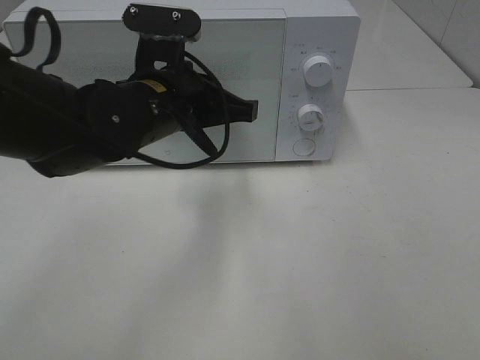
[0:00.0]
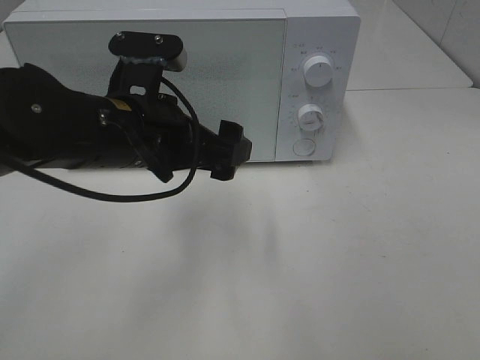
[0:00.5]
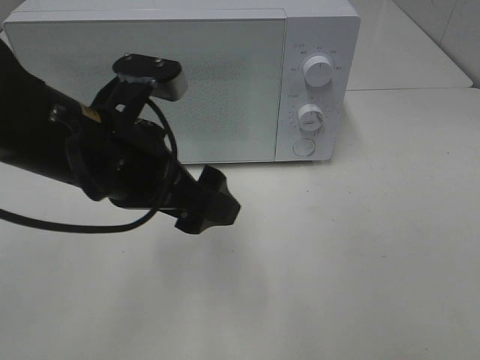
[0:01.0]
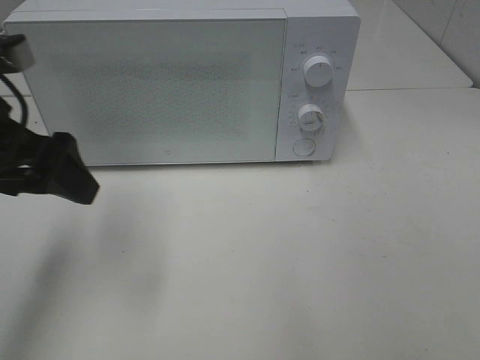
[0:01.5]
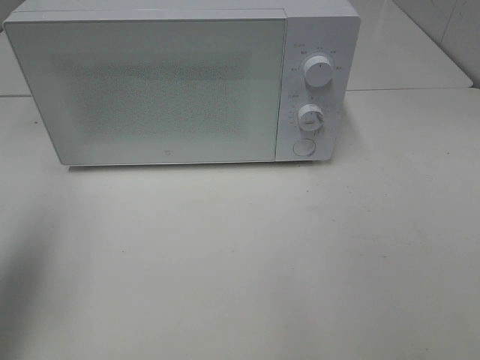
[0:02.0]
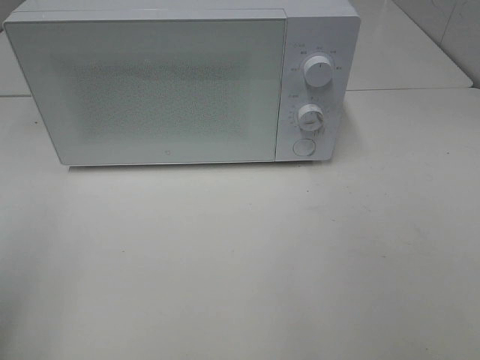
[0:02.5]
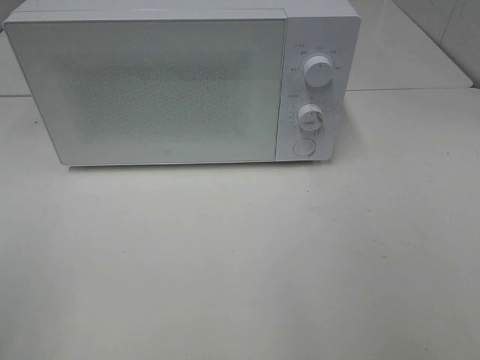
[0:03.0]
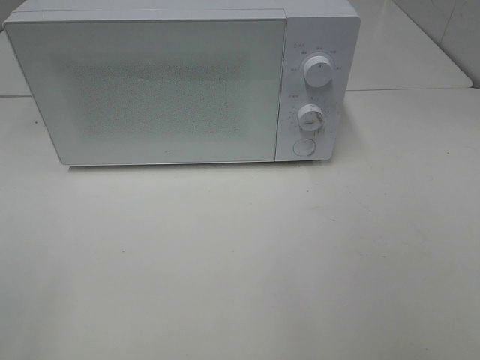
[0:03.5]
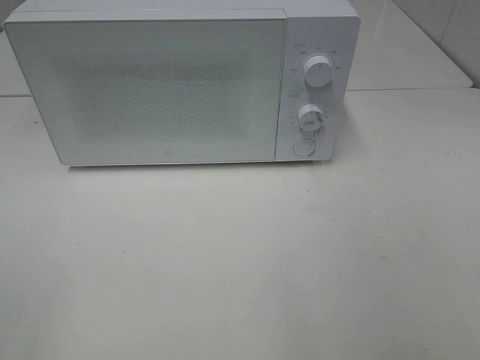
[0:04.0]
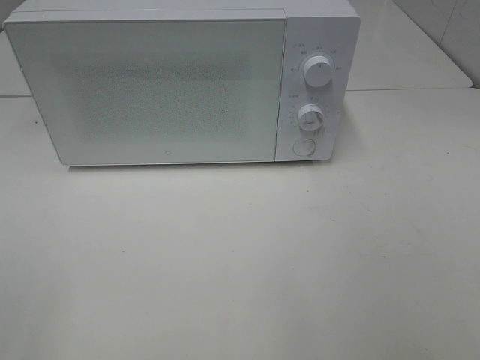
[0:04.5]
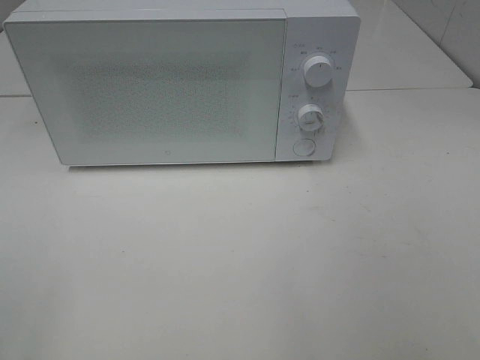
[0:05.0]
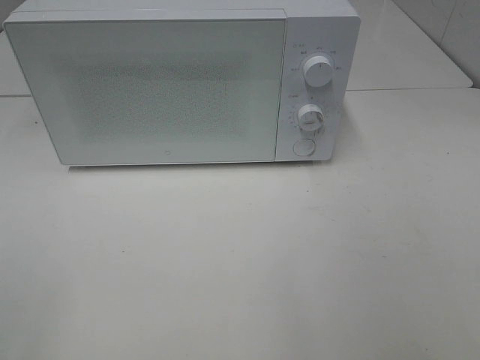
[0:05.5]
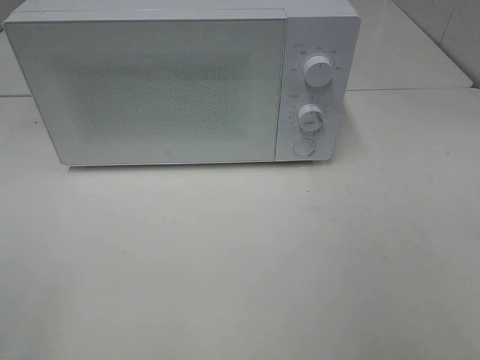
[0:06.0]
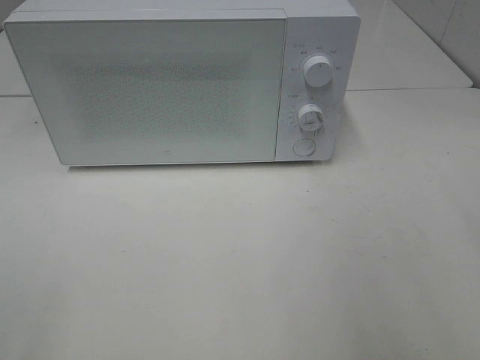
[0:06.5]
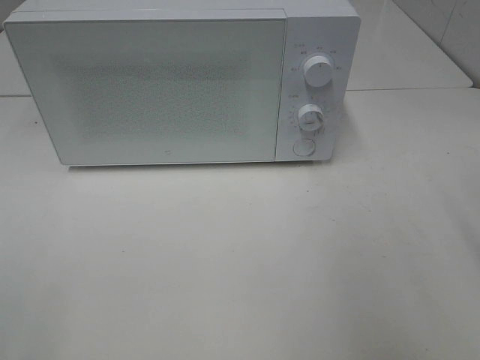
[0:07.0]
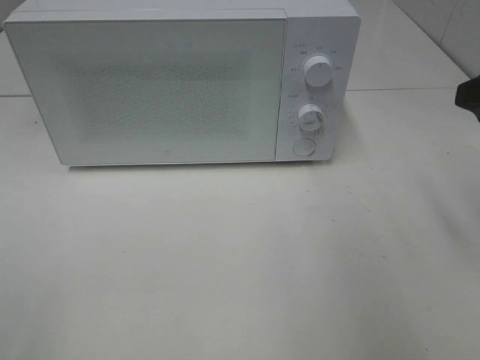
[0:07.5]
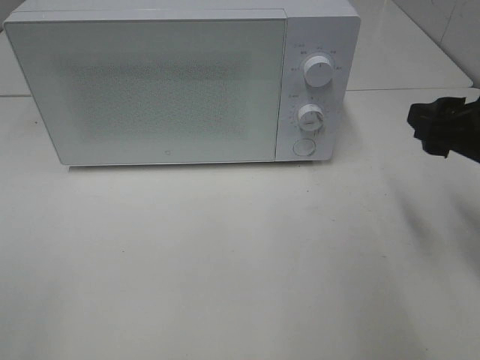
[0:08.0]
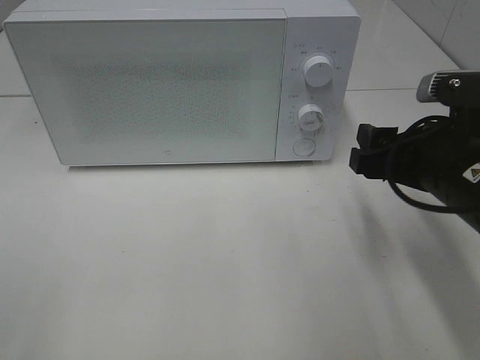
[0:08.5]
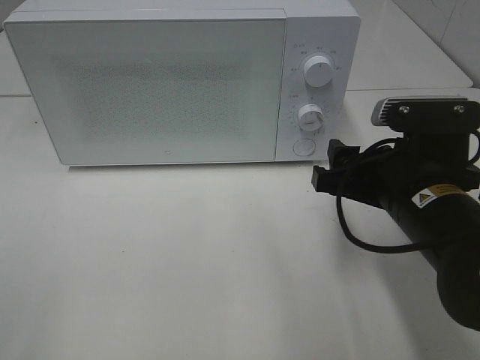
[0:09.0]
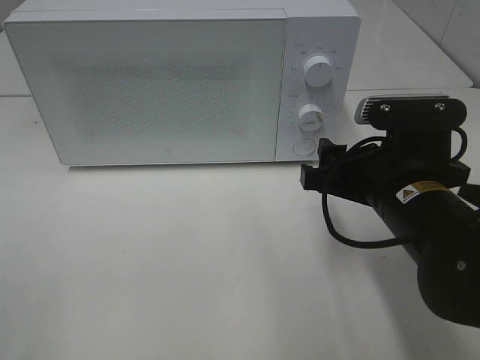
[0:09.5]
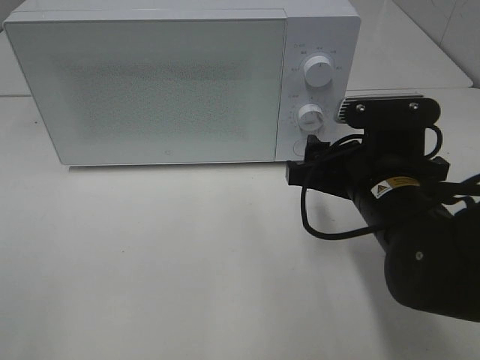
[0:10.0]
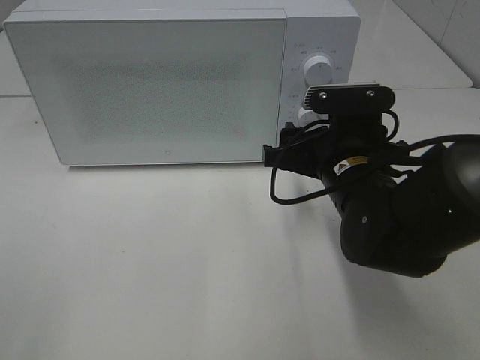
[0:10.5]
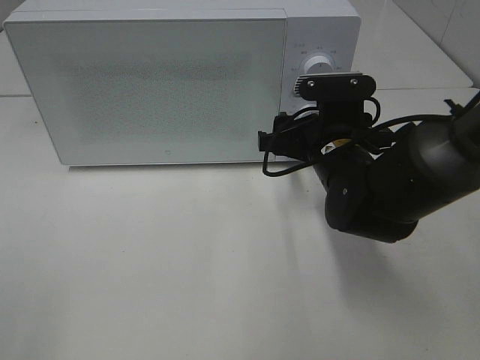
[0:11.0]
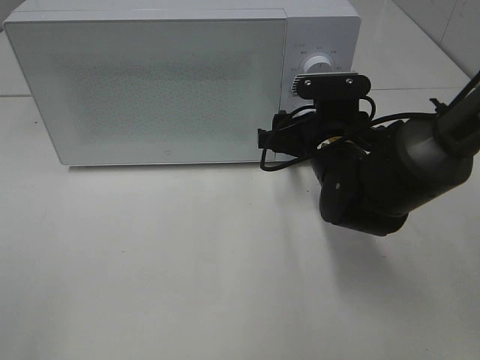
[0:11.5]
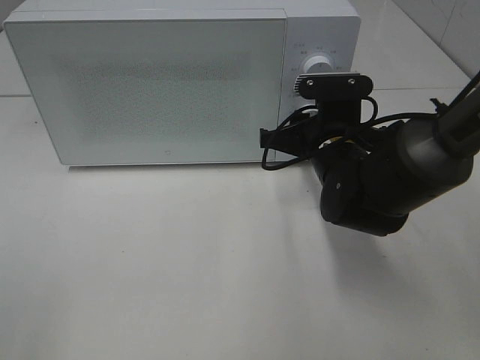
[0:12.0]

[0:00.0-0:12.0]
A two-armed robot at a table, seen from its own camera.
Task of the whole recording: Heat Sandwich.
0:00.0 to 0:02.0: The left gripper goes approximately 30 cm to the left, backward and upward, and opens its fingers.
0:02.0 to 0:04.0: The left gripper shifts about 20 cm backward.
0:06.0 to 0:08.0: The right gripper goes roughly 20 cm forward and downward.
0:08.0 to 0:10.0: The right gripper shifts some 15 cm to the left and downward.
0:10.0 to 0:12.0: The right gripper goes about 10 cm forward, and closes.

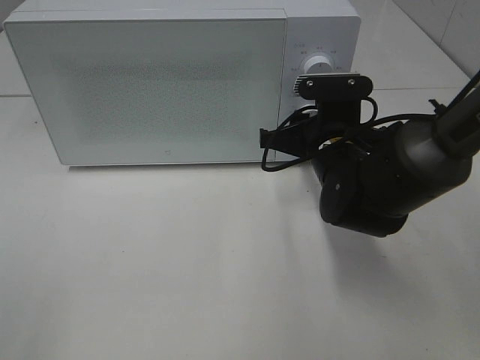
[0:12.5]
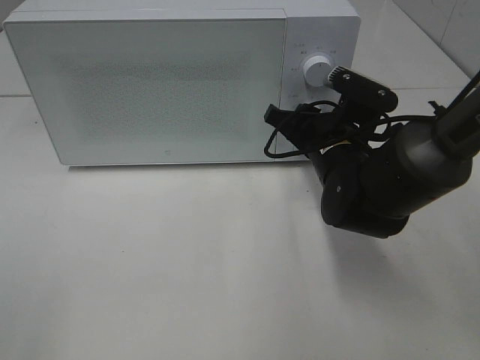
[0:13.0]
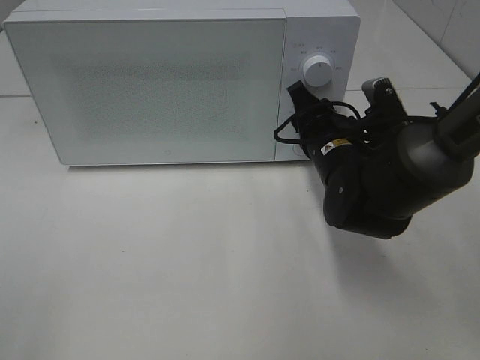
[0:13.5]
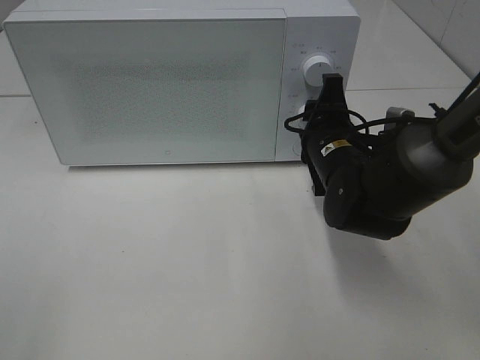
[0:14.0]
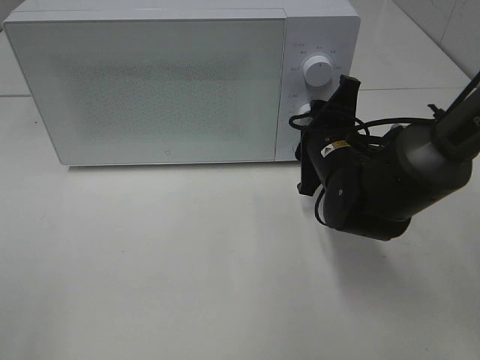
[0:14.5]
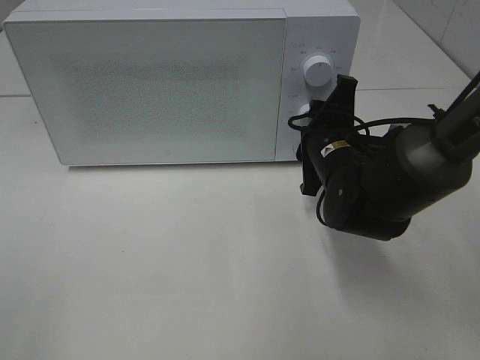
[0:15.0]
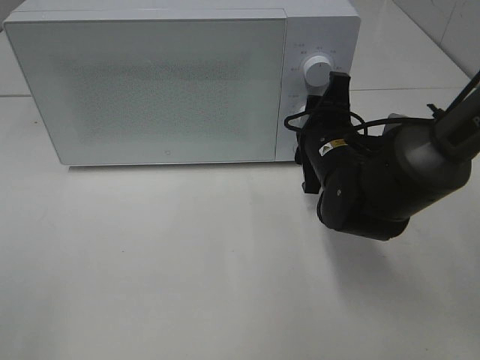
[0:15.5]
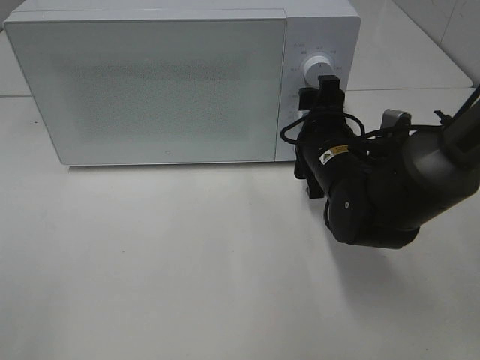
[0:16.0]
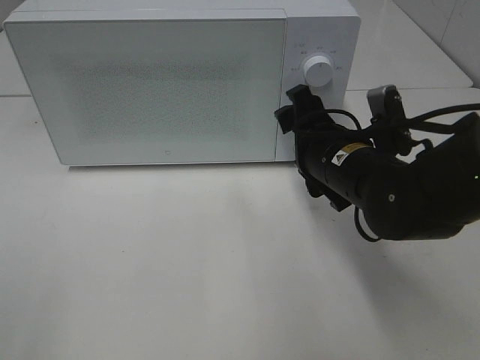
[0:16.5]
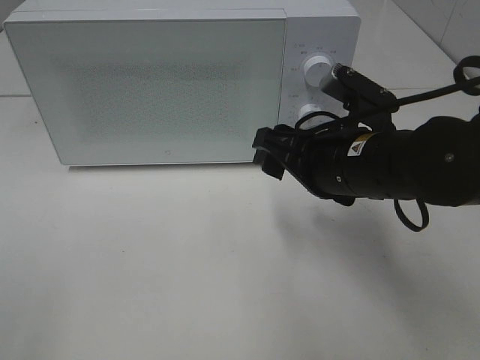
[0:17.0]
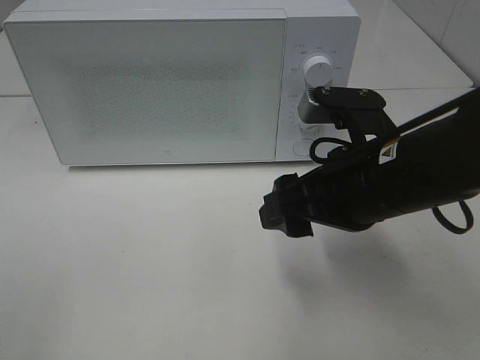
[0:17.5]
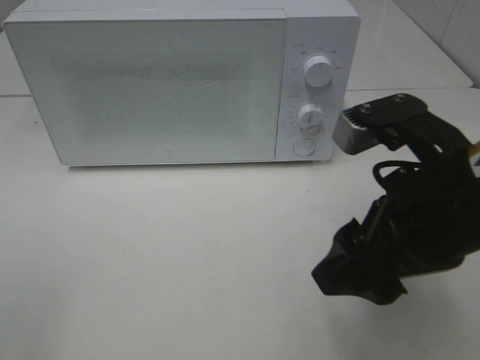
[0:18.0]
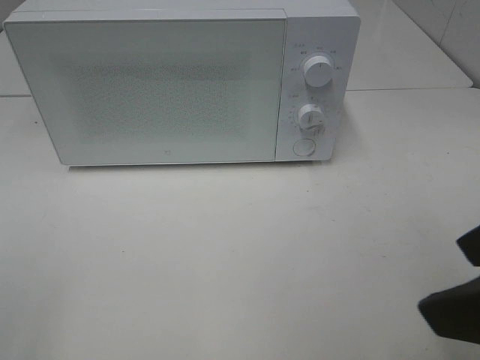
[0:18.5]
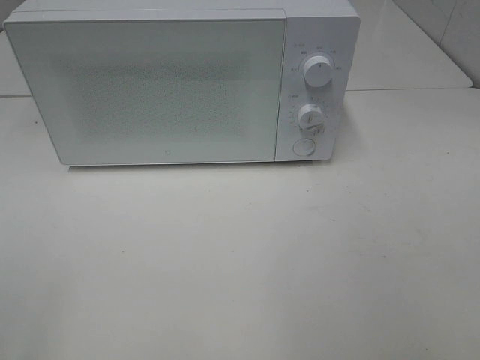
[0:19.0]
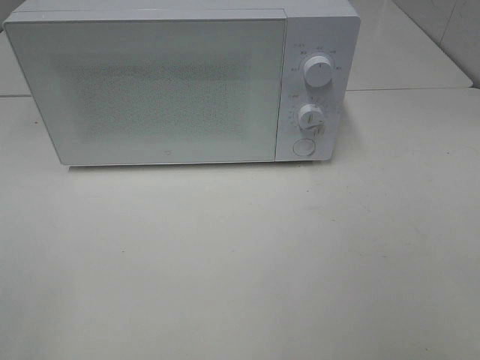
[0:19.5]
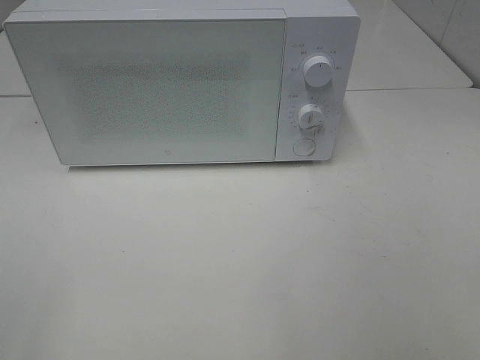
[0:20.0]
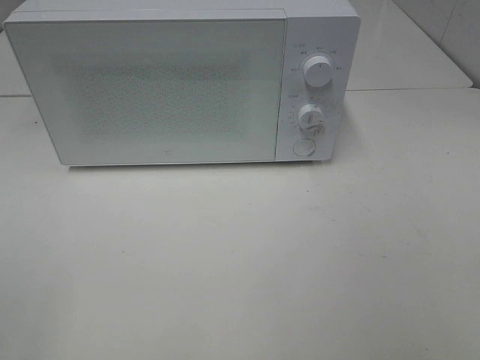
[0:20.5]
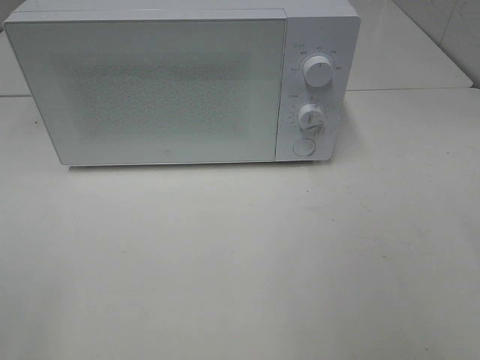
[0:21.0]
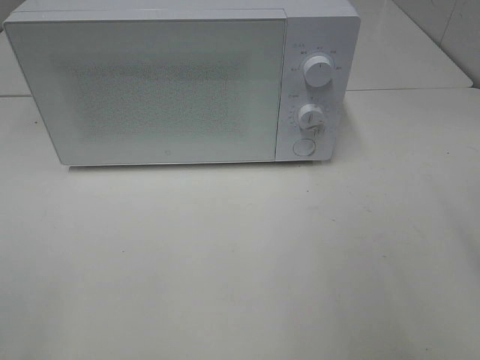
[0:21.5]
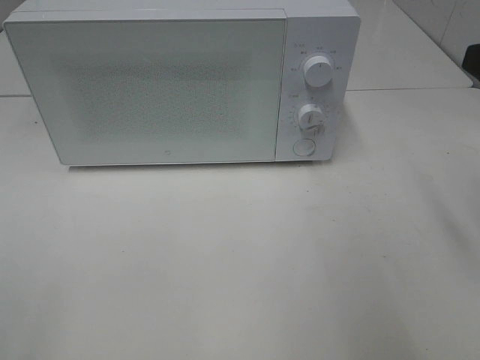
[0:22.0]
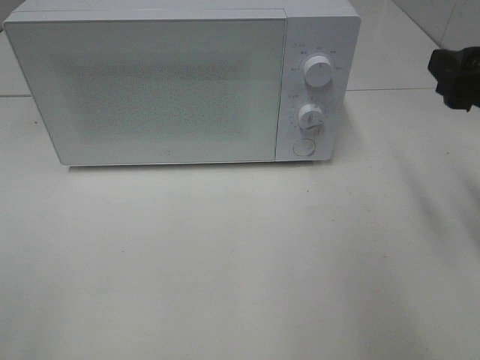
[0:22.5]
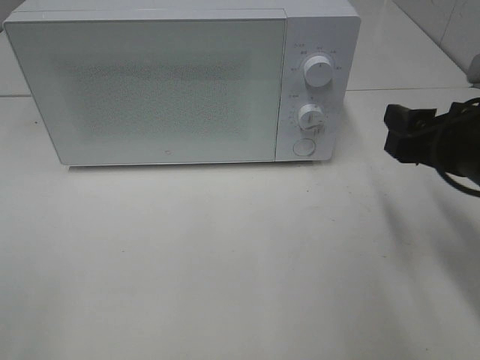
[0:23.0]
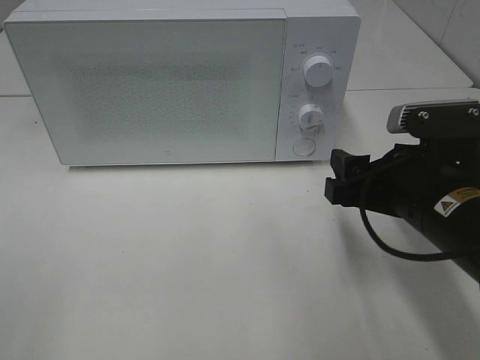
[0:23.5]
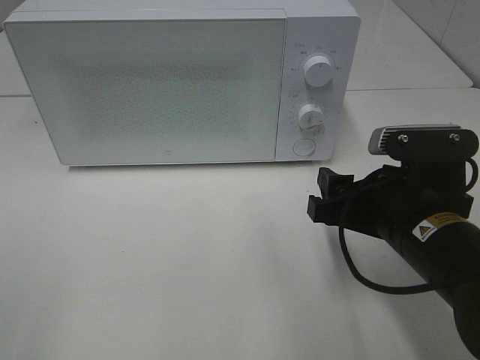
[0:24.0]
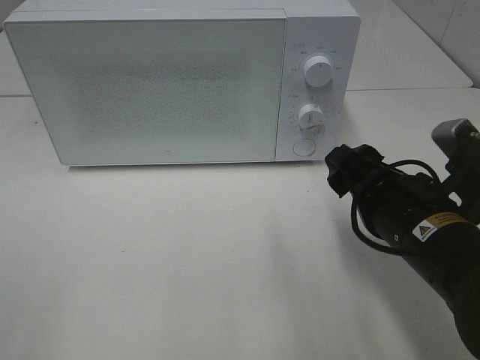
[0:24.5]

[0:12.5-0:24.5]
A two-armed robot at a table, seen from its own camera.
Task of the whole recording: Heat Sandwich.
Step, 0:12.5 to 0:16.0: Right hand: twist timer button.
0:14.5 to 0:16.5: The right gripper opens up.
0:16.5 to 0:18.5: The right gripper heads backward, upward and to the right, covering about 25 cm.
0:18.5 to 0:20.5: The right gripper goes approximately 15 cm backward and to the right.
0:20.5 to 0:22.5: The right gripper shifts about 25 cm forward.
0:22.5 to 0:24.5: The right gripper moves downward and to the left, some 15 cm.

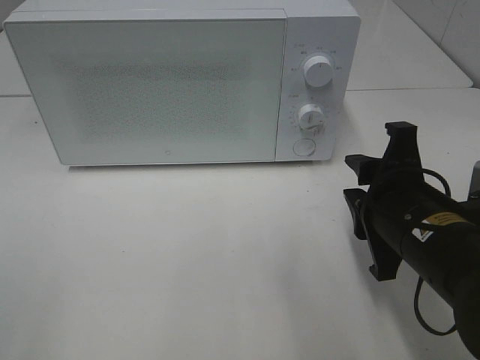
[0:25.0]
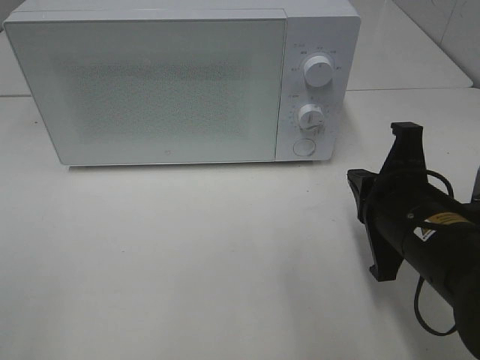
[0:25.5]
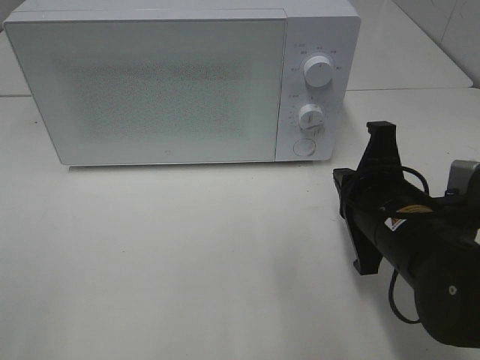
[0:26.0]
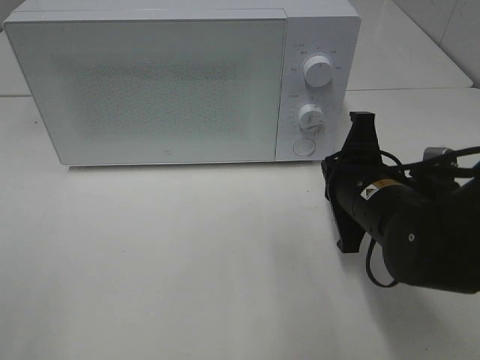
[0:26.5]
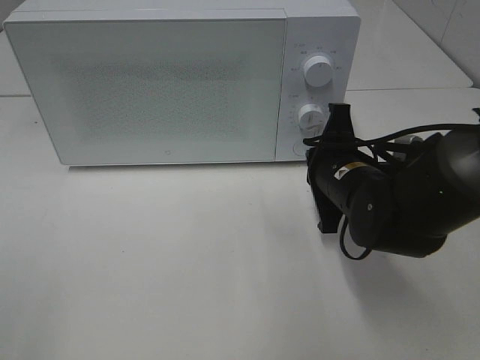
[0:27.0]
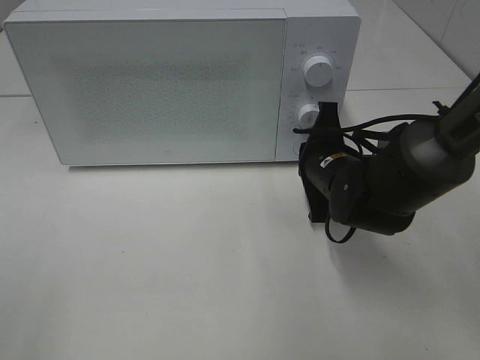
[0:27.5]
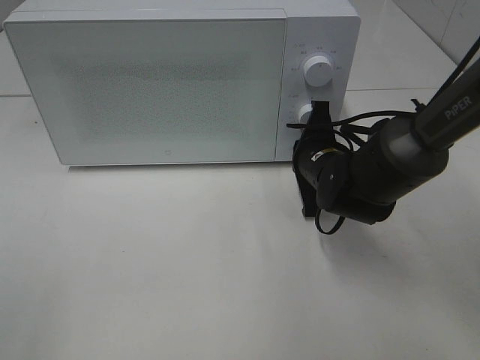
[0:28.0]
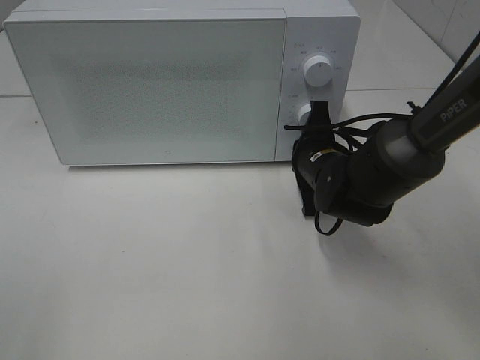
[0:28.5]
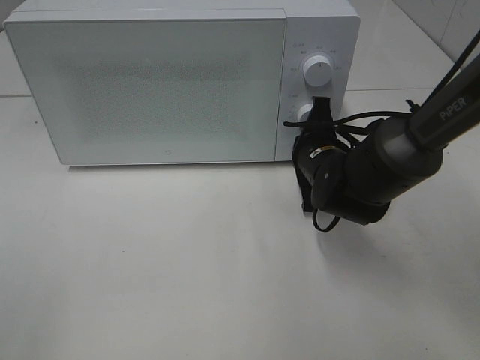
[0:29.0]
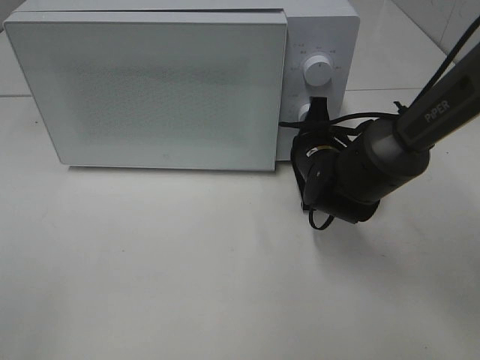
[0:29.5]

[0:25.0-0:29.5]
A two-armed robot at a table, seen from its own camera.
Task of the whole recording: Heat Sandwich.
0:25.0 to 0:27.0: The right gripper goes roughly 10 cm forward, and closes up.
0:27.0 to 0:29.5: The right gripper heads forward, covering about 5 cm.
